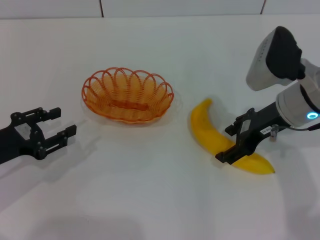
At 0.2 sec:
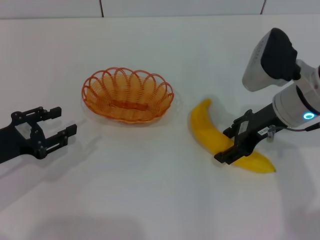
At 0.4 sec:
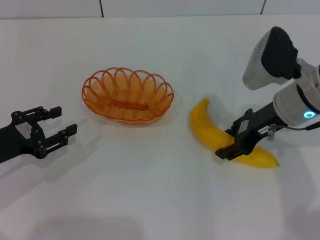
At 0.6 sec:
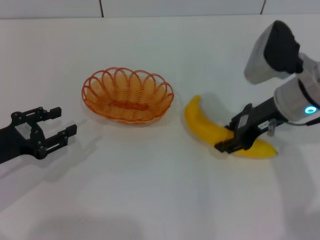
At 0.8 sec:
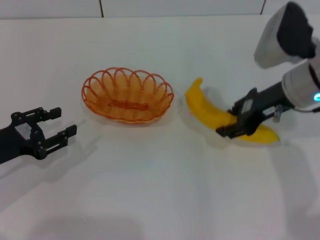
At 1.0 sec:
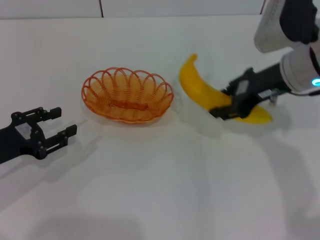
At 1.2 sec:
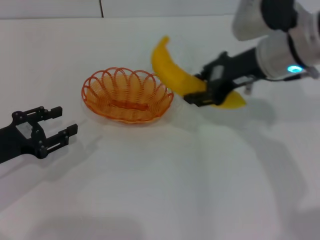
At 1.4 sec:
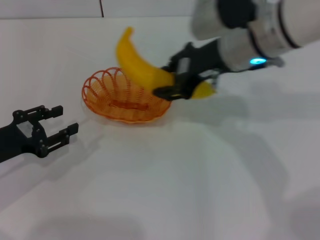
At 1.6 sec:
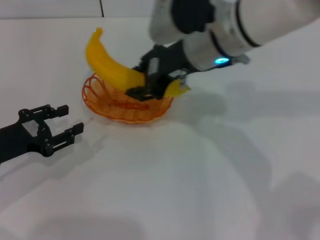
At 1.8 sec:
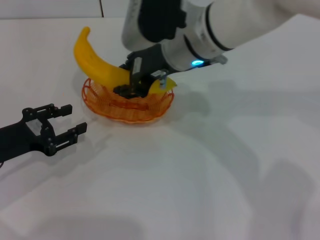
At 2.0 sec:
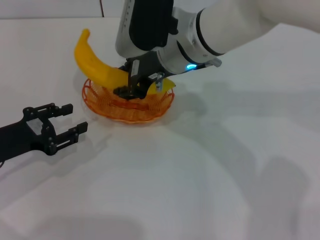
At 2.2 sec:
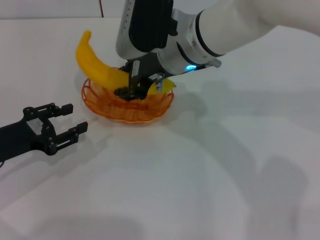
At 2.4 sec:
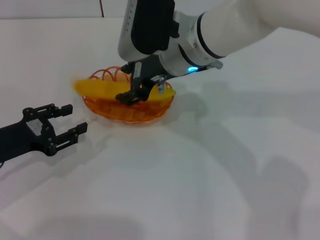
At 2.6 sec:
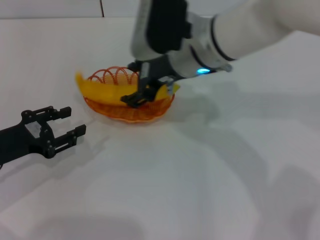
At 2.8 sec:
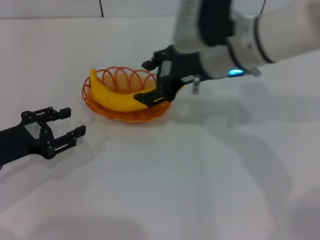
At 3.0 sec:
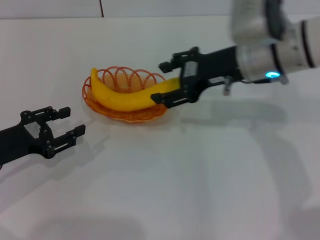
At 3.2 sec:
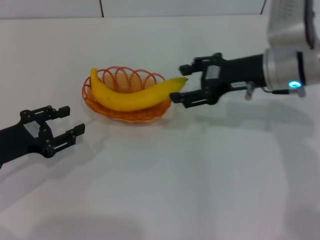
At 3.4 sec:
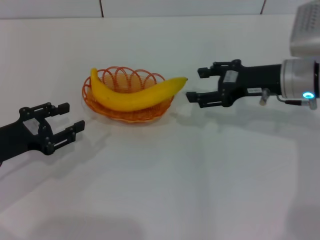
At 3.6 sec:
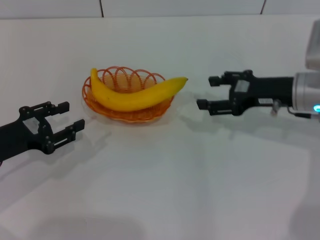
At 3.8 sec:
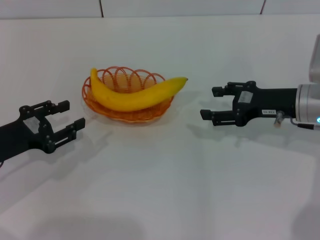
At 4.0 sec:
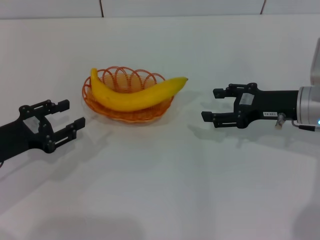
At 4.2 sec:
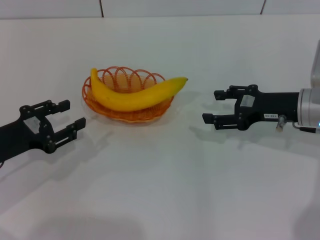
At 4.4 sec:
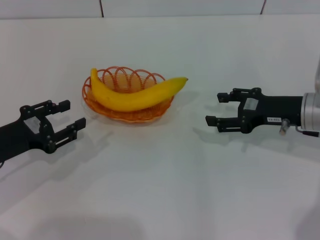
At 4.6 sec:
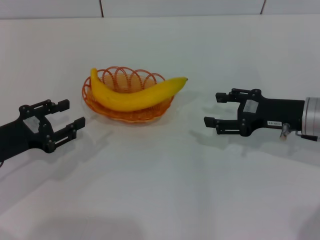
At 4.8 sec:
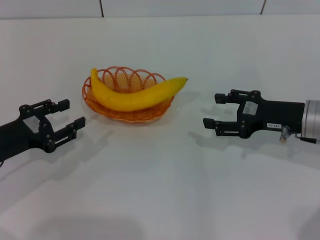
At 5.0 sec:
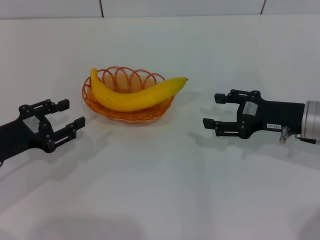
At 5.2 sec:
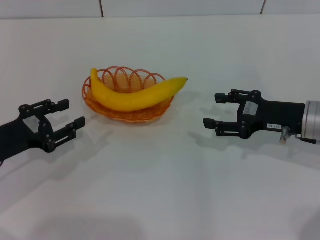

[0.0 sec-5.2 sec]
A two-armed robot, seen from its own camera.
Step, 0.8 sec to 2.8 sec: Place the banana into the basket with the right gripper.
0.0 sec to 1.8 sec: The right gripper moves to the left, about 15 cm, and closes its fingers.
1.8 sec to 3.4 sec: The right gripper heads to the right, covering some 20 cm, and opens its fingers.
3.4 sec to 5.2 sec: The right gripper shifts roughly 5 cm backward.
